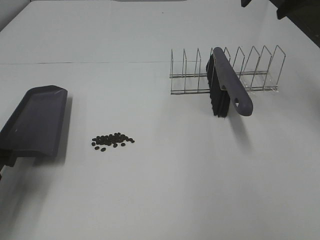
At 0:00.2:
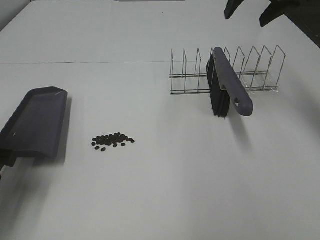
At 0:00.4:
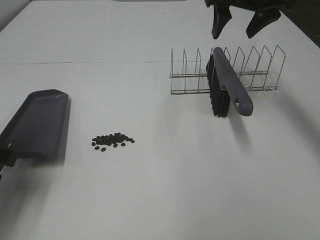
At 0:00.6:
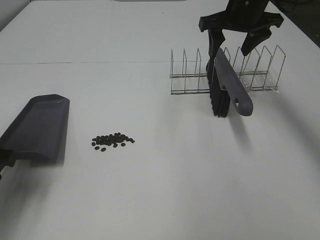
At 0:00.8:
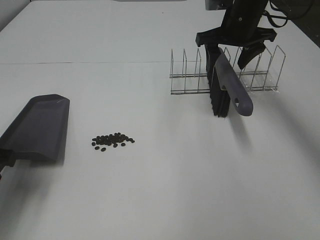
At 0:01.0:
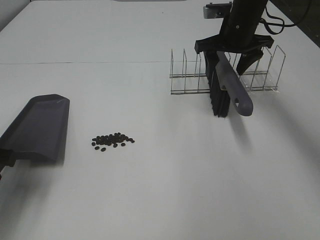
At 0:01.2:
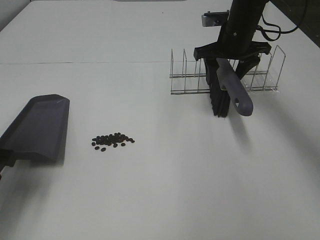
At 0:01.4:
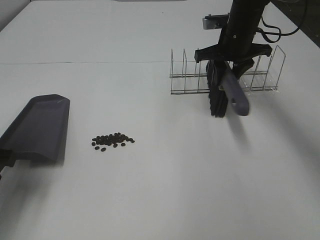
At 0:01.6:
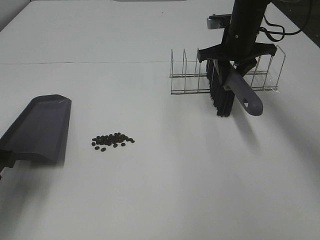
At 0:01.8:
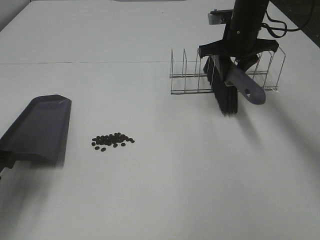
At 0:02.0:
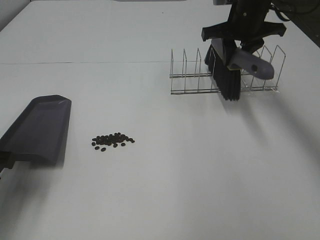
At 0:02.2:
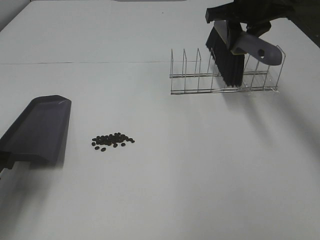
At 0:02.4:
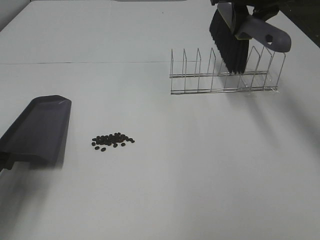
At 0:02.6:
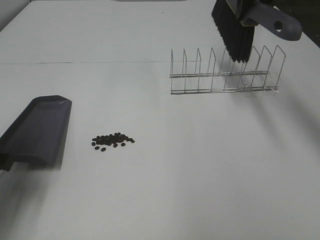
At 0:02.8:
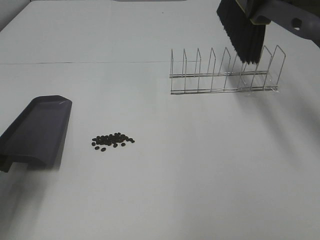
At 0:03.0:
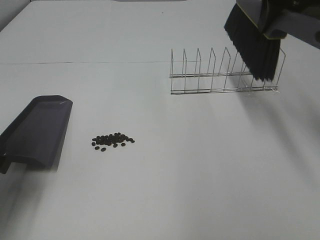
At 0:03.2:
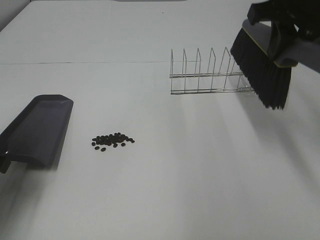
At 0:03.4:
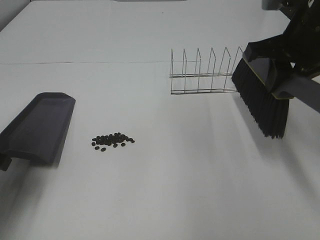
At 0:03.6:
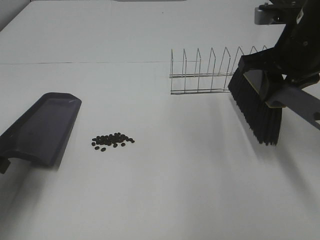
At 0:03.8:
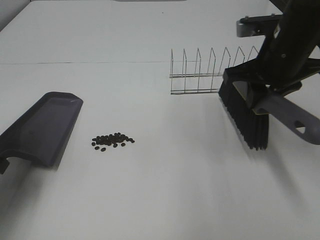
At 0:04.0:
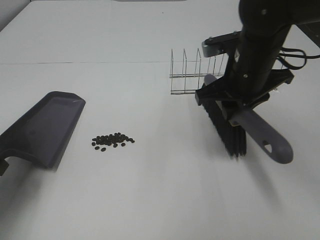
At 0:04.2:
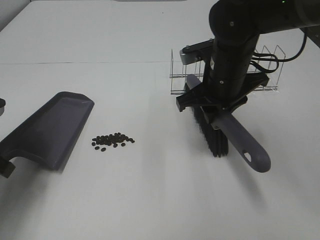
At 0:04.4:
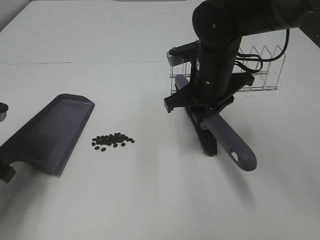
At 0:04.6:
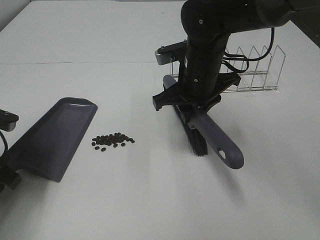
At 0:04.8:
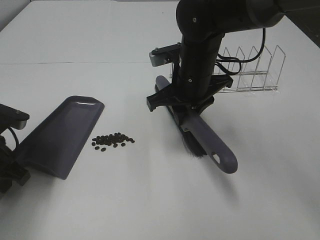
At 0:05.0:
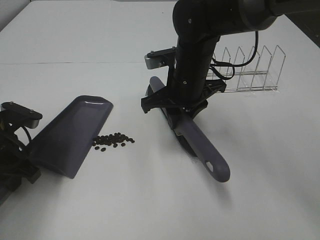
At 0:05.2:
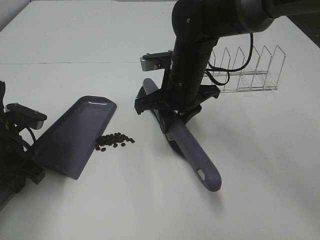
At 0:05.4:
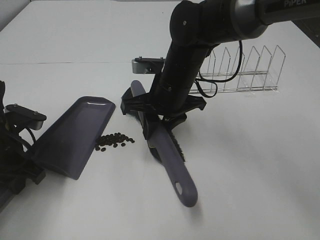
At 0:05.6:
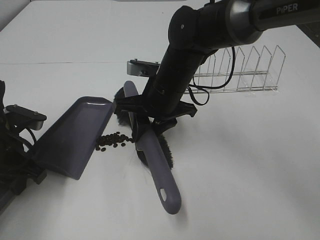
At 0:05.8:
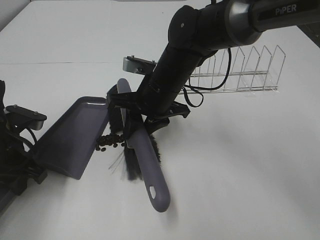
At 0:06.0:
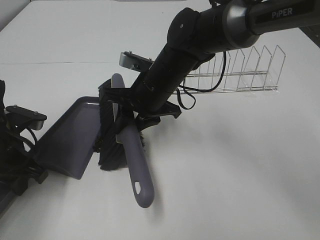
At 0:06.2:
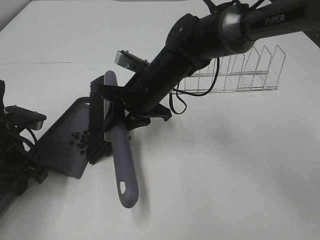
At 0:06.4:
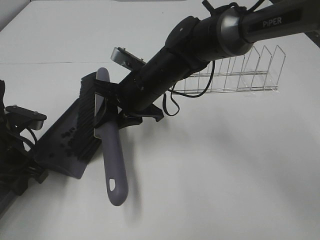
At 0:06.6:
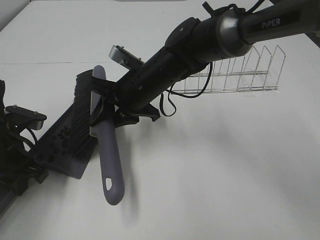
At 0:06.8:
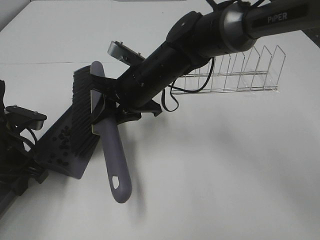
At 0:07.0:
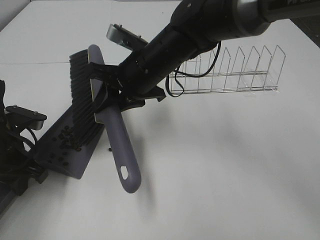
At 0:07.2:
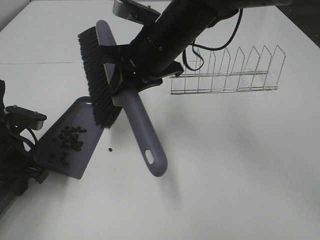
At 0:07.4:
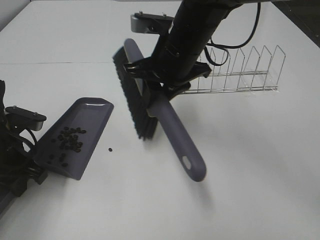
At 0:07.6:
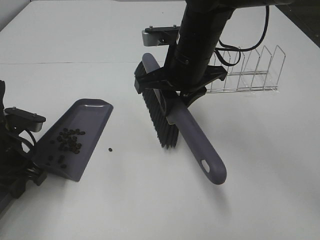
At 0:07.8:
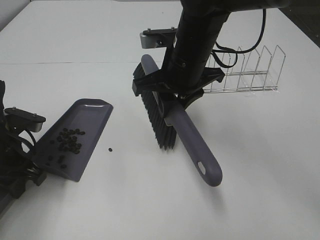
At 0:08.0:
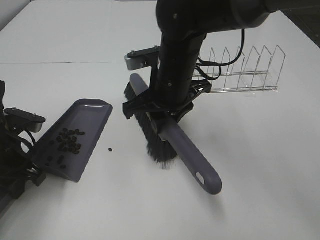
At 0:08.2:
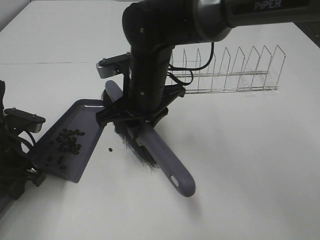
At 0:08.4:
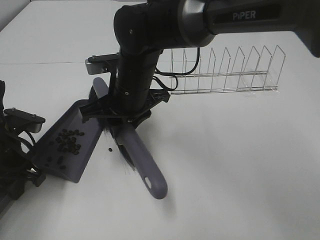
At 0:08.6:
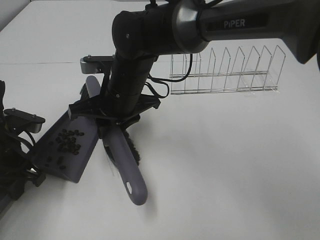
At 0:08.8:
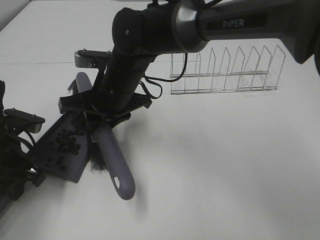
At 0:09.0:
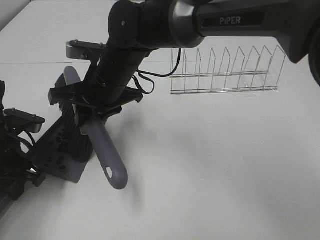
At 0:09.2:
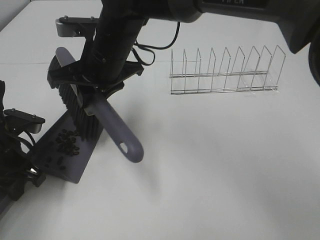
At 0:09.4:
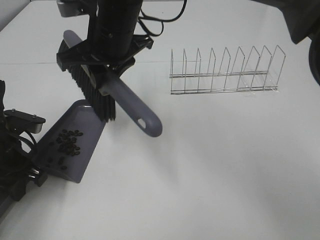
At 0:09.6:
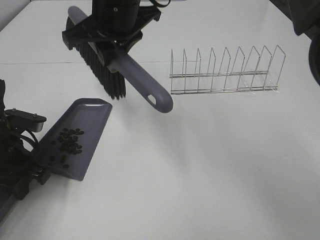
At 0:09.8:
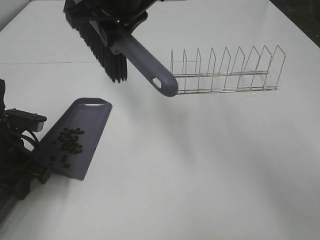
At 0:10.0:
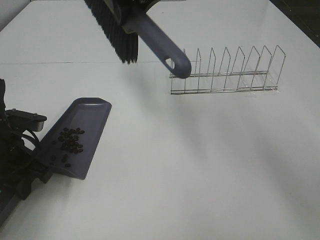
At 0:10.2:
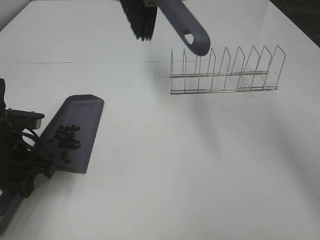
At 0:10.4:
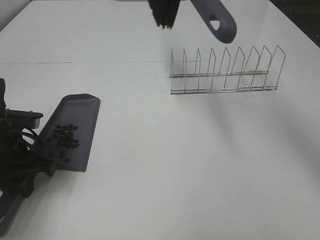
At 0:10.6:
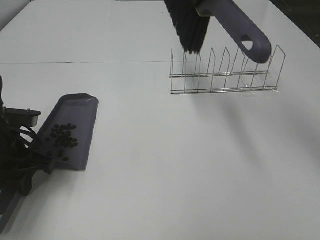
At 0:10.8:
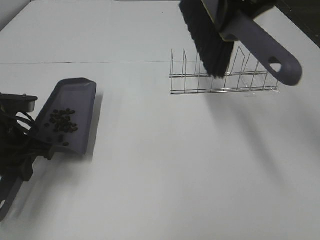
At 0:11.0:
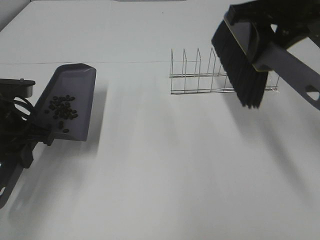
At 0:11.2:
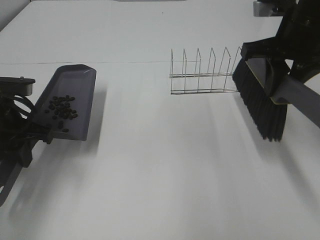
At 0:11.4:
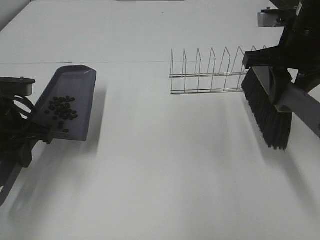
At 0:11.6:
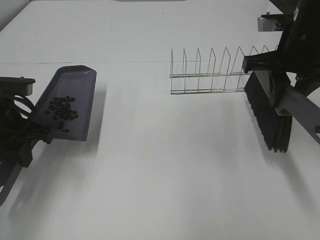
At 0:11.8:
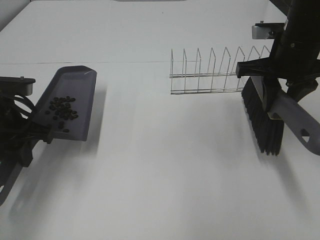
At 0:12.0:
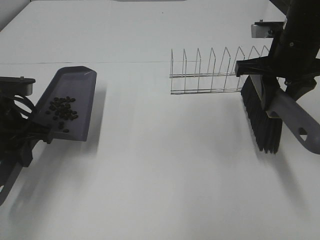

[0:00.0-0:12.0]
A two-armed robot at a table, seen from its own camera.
Task of the whole recording: Sweep Coffee Bean.
Step, 0:01.8 to 0:09.2: Right hand:sweep the coffee beans into the dustpan.
0:00.0 to 0:01.6: The right gripper moves downward, roughly 15 cm, and closes up.
0:01.6 to 0:03.0: The right gripper moves upward and backward, approximately 20 cm.
0:03.0 to 0:04.4: The right gripper heads downward and to the left, covering approximately 20 cm.
0:04.4 to 0:06.0: The right gripper heads to the left, covering some 10 cm. Meanwhile the left gripper ends up approximately 5 cm from where it was.
0:06.0 to 0:07.6: The right gripper travels upward by roughly 5 cm.
0:07.6 to 0:09.0: The right gripper goes approximately 10 cm to the left.
0:09.0 to 0:10.4: The right gripper travels upward and to the right by some 25 cm.
0:10.4 to 0:12.0: The right gripper moves downward and to the right, about 20 cm, while the left gripper is displaced upward by some 5 cm.

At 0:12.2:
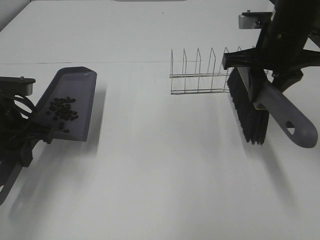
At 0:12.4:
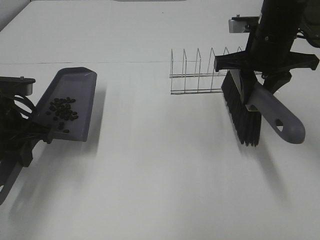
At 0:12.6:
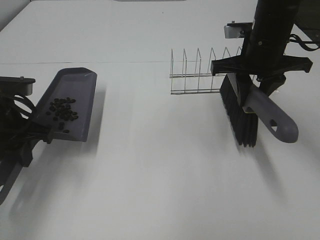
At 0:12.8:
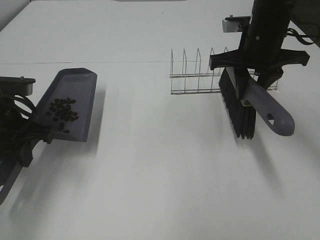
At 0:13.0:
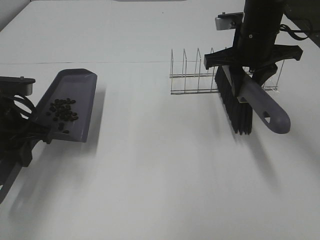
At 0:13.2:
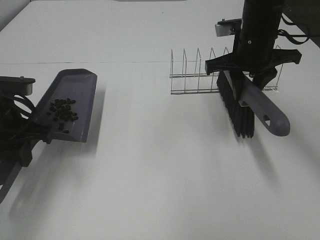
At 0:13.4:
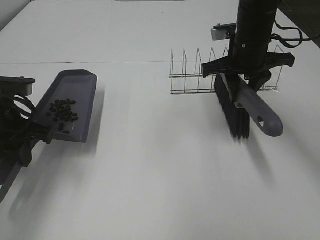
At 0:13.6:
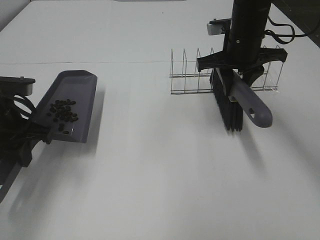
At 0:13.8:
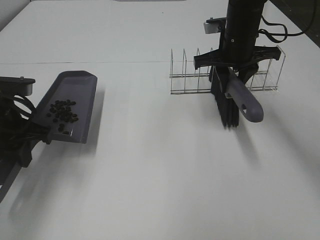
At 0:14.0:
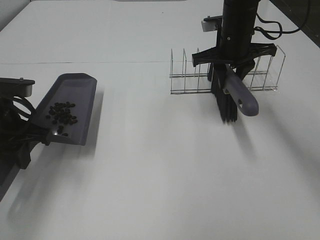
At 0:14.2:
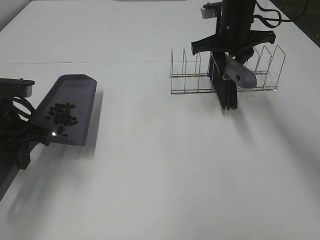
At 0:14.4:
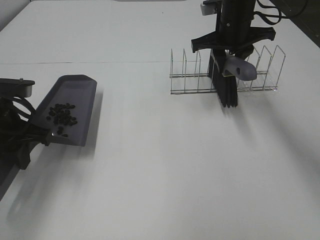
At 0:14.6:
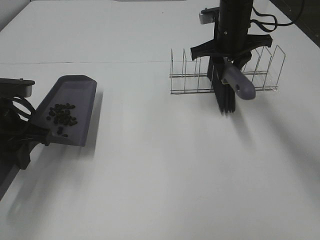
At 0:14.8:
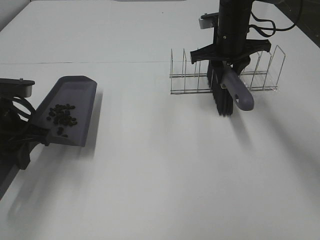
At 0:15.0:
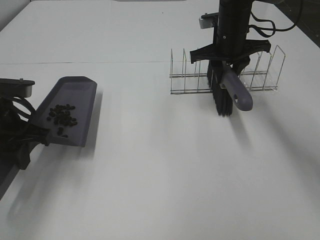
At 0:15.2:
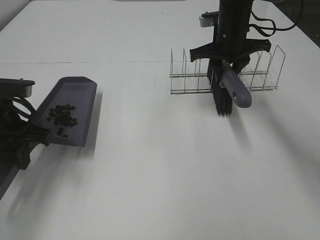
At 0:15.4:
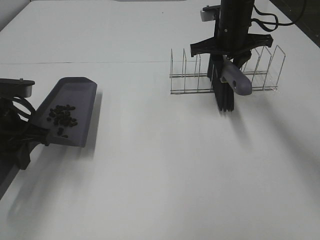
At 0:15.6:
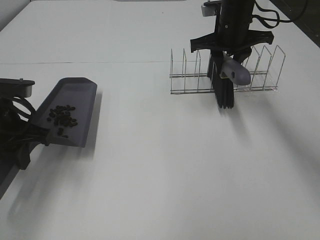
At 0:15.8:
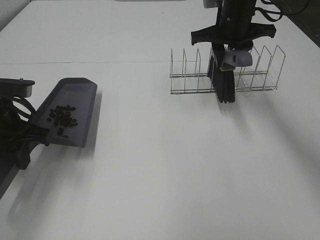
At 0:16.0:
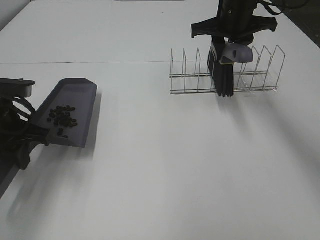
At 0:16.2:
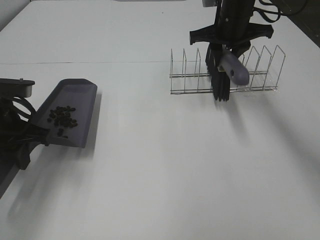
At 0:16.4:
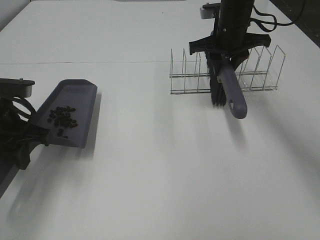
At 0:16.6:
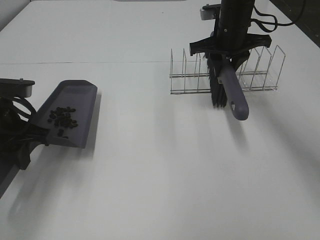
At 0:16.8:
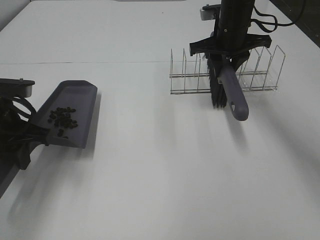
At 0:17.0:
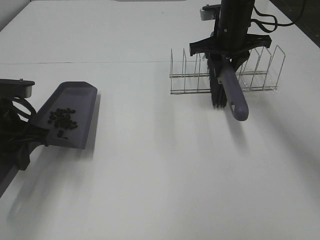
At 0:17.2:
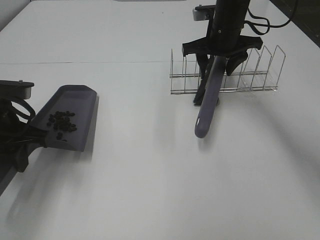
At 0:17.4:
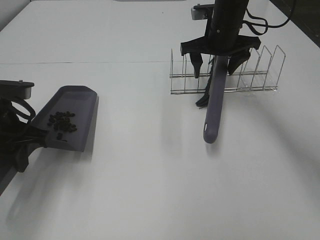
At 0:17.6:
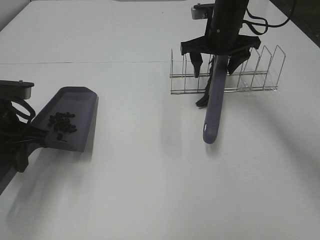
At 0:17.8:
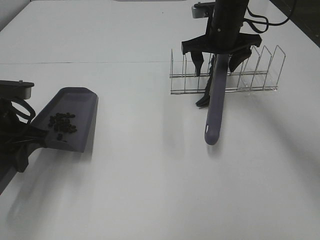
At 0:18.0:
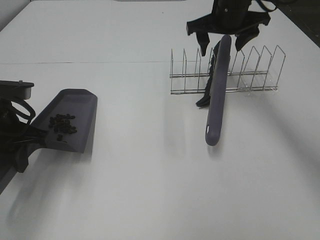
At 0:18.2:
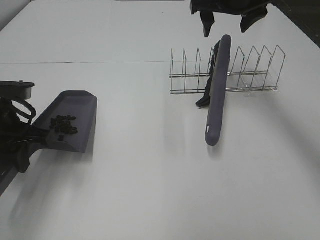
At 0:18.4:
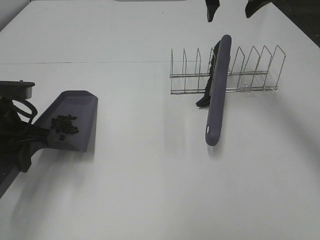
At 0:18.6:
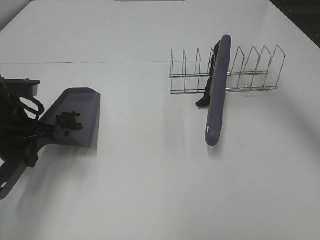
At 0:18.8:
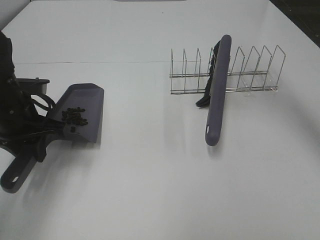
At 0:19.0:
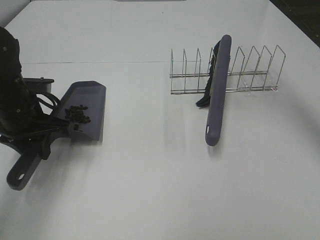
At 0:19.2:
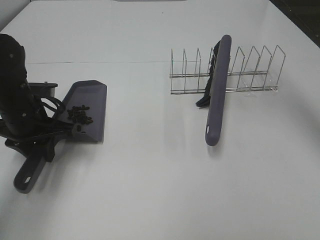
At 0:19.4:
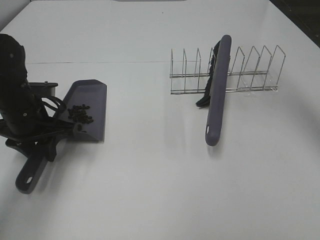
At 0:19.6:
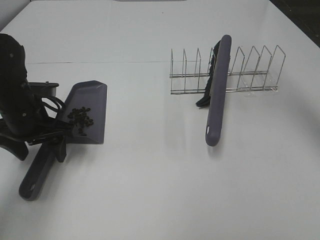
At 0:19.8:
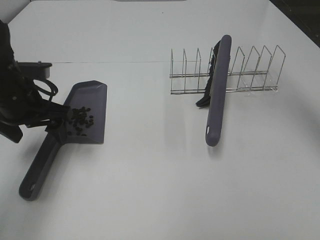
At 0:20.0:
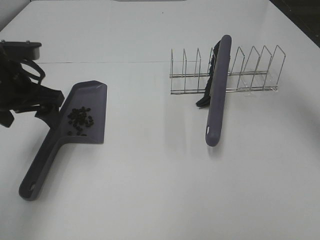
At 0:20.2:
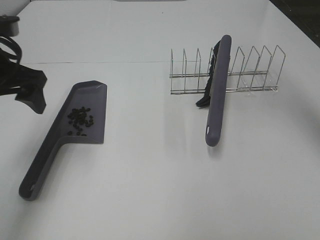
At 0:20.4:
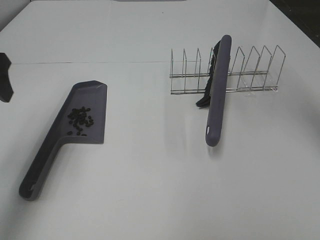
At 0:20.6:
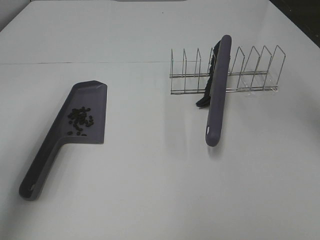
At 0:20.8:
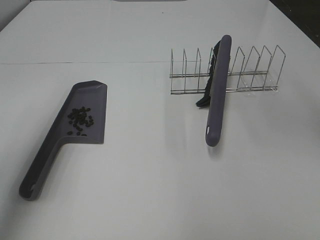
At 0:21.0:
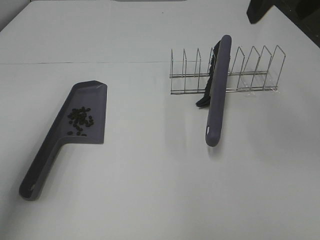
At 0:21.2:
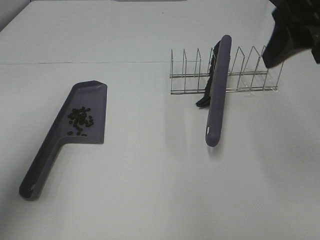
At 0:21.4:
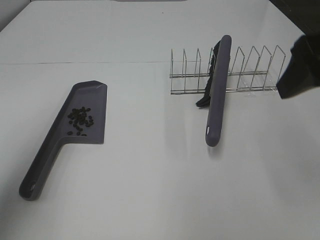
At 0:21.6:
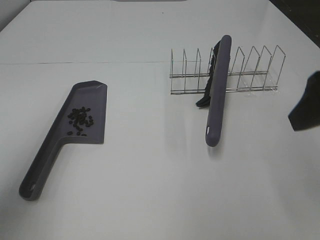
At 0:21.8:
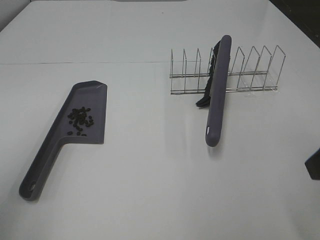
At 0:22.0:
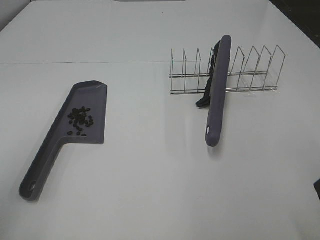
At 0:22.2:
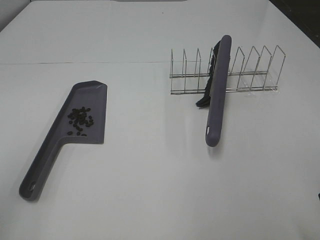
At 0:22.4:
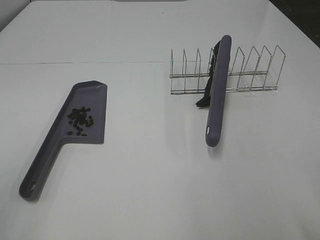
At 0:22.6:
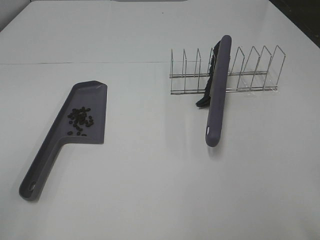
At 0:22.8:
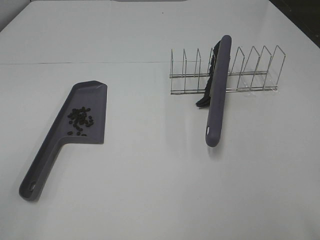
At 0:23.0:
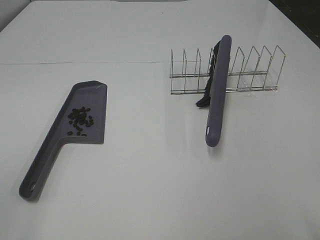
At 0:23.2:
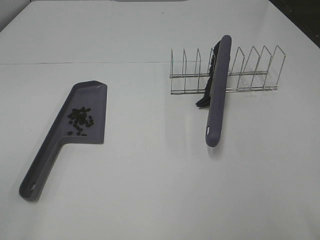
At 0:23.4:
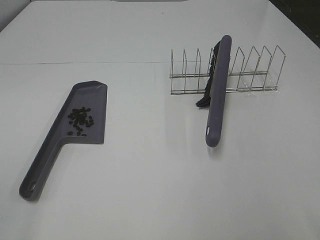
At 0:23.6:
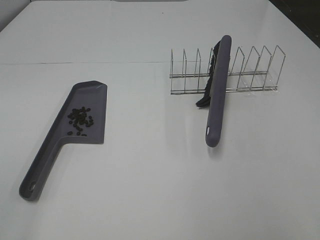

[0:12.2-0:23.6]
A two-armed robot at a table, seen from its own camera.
Task of the whole recording: Sweep Coffee Bean.
Step, 0:12.2 to 0:17.4: Right hand:place the broom on the rack.
Step, 0:17.6 to 0:19.8: Left hand:place the dustpan on the table.
0:12.2 to 0:13.6: The right gripper shifts approximately 5 cm forward.
0:13.6 to 0:15.0: The right gripper moves forward, about 5 cm.
0:15.0 to 0:16.4: The grippers make only small movements.
0:16.4 to 0:17.8: The right gripper opens up.
0:17.8 to 0:19.4: The left gripper changes place by approximately 5 cm, while the right gripper goes roughly 20 cm upward.
0:19.4 to 0:20.8: The left gripper shifts roughly 25 cm upward and backward, and opens.
0:20.8 to 0:22.2: The right gripper goes roughly 30 cm backward and downward; the left gripper travels backward by approximately 15 cm.
